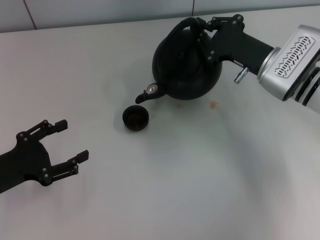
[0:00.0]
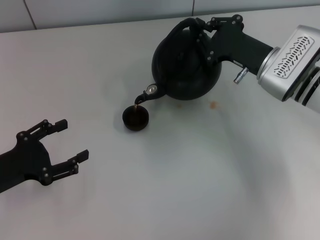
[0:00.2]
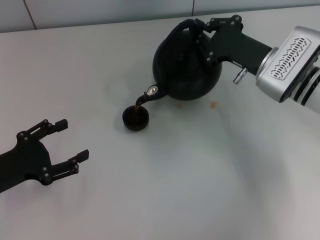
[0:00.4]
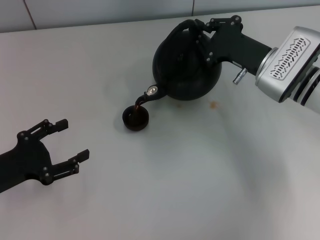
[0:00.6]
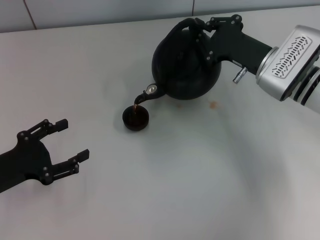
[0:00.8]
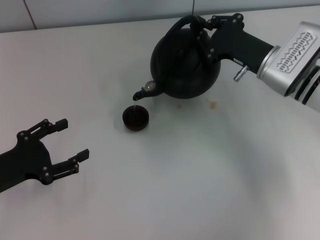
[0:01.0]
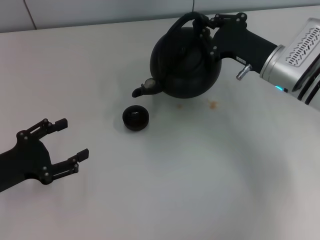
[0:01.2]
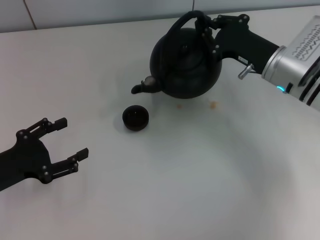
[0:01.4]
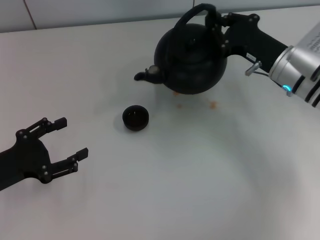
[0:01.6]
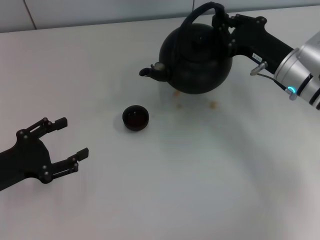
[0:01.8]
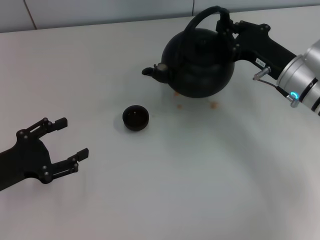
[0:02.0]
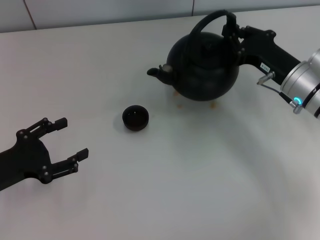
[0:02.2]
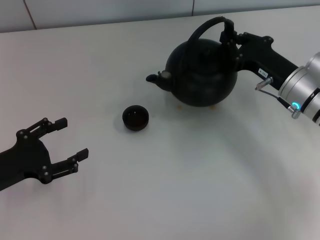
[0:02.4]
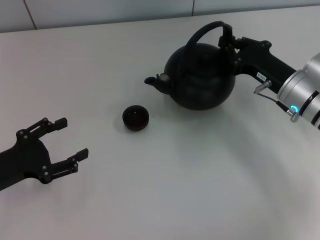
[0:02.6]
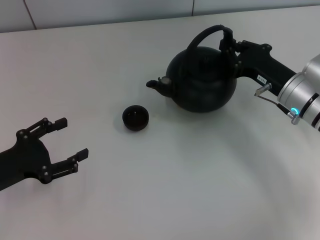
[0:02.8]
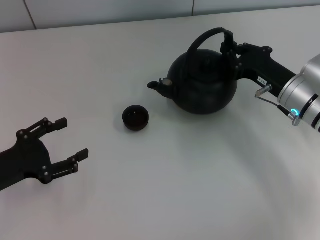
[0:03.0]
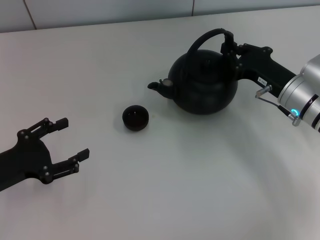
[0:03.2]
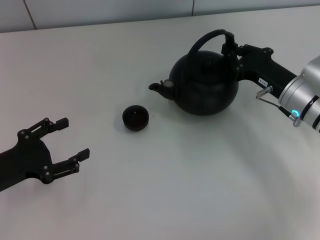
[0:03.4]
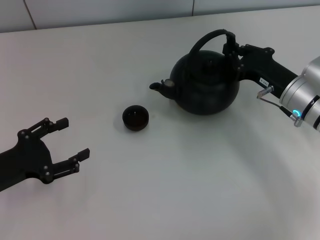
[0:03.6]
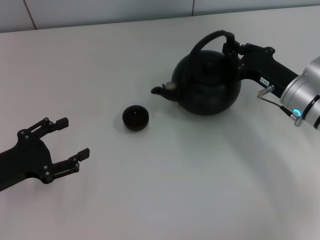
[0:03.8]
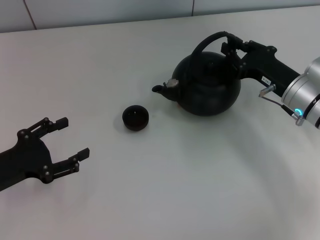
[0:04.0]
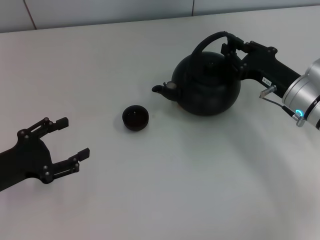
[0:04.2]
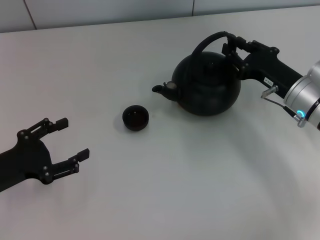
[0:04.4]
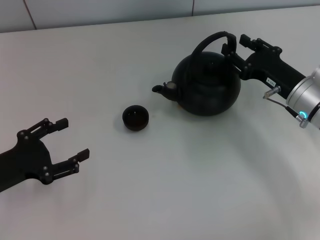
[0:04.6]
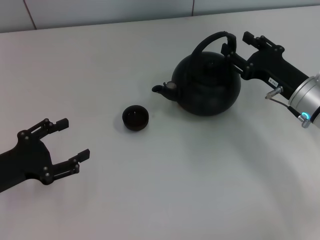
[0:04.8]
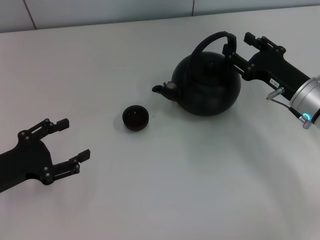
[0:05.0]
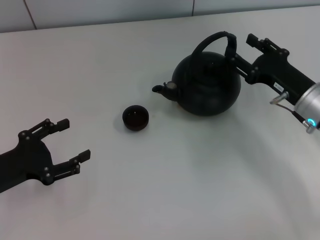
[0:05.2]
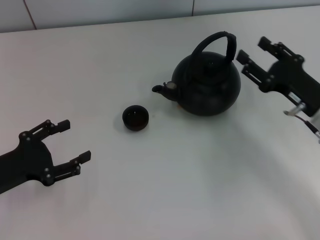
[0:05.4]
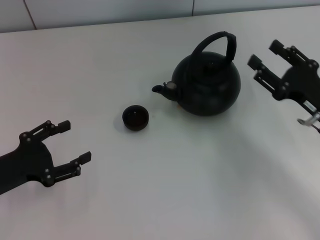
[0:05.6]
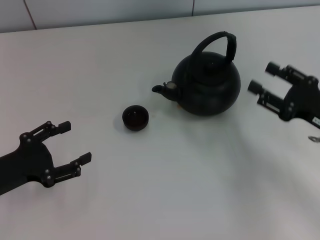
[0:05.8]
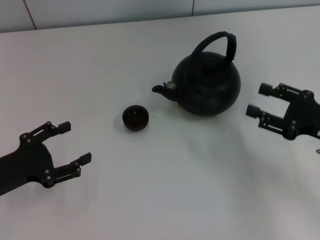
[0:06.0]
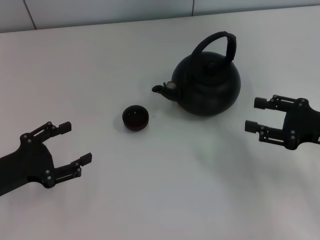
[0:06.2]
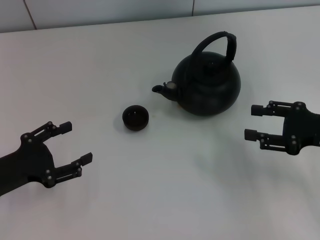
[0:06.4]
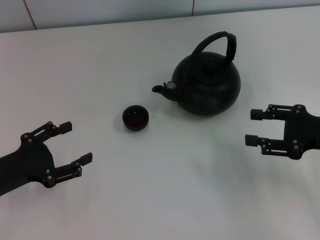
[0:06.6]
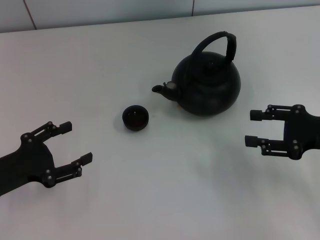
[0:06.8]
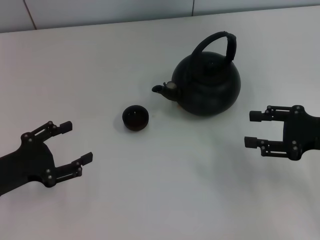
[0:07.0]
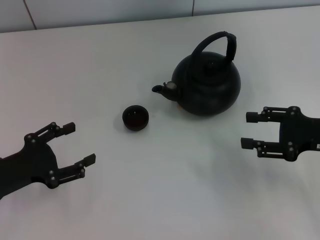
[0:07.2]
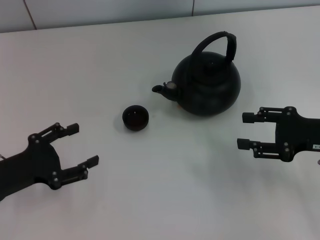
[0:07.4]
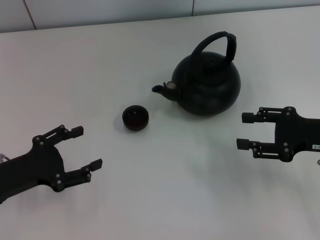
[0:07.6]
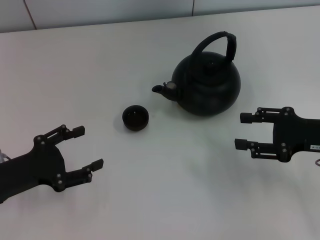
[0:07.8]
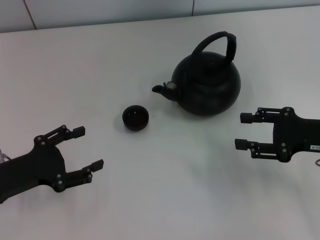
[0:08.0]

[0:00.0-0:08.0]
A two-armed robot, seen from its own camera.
Task of the whole recording: Grasp the handle of the teapot with one hand and pour tea into the teacup.
Step, 0:01.2 to 0:05.4: Put down the teapot with the right gripper.
0:01.6 to 0:03.2: There are only small adjustments of the grippers.
0:03.2 to 0:04.8: The right gripper opens its fingers.
0:04.8 to 0:06.4: The right gripper is displaced to the right and backward by approximately 10 cm.
0:06.4 to 0:08.0: Both grippers stay about where they are.

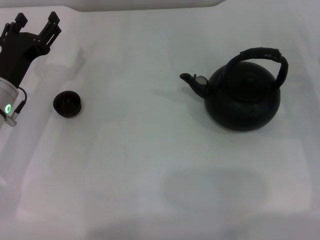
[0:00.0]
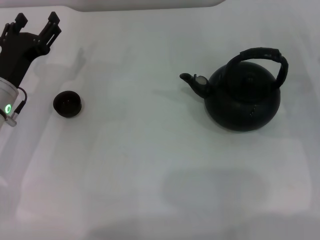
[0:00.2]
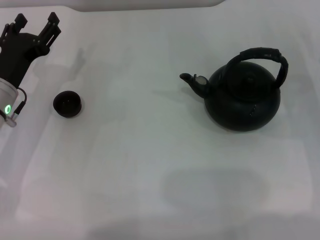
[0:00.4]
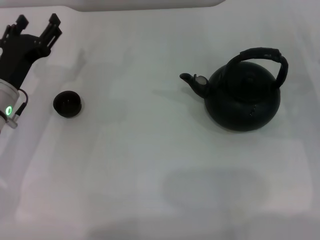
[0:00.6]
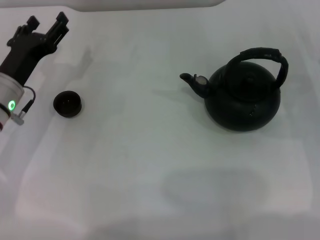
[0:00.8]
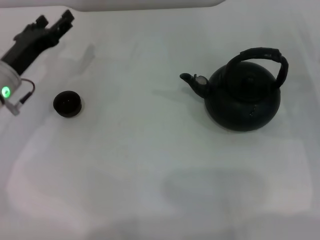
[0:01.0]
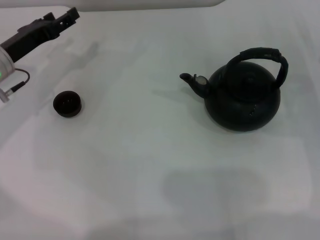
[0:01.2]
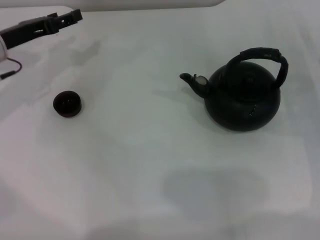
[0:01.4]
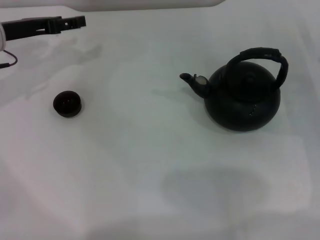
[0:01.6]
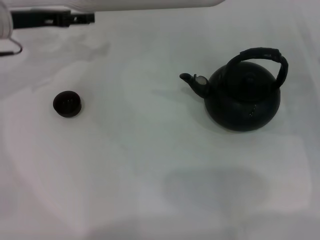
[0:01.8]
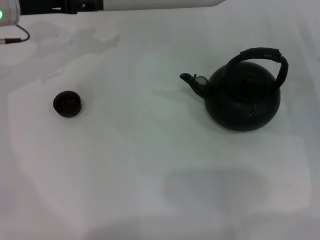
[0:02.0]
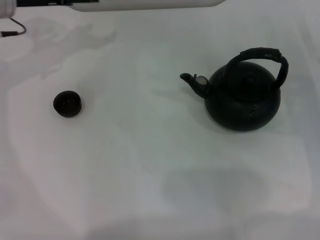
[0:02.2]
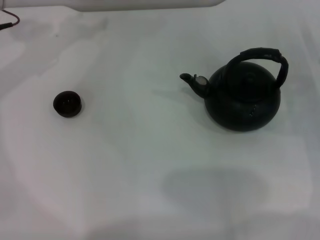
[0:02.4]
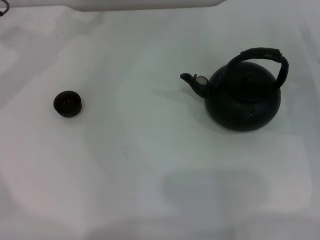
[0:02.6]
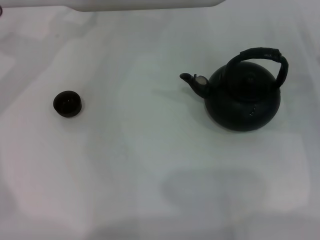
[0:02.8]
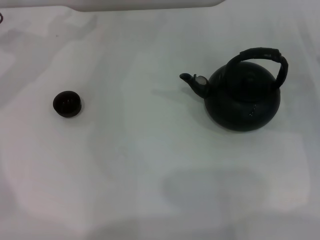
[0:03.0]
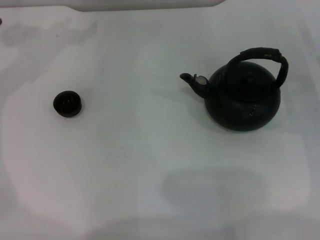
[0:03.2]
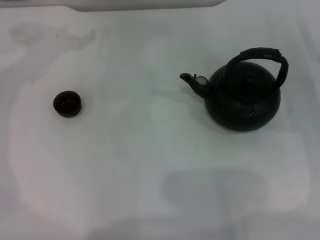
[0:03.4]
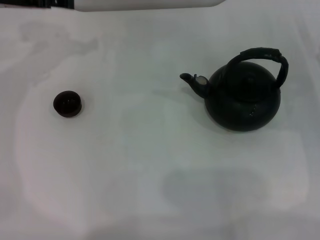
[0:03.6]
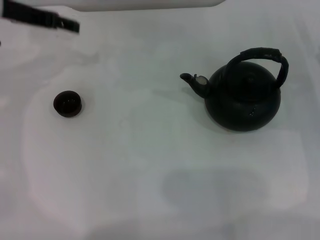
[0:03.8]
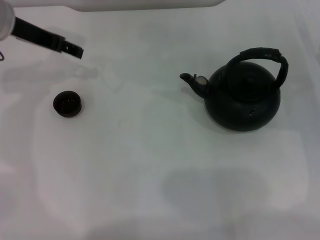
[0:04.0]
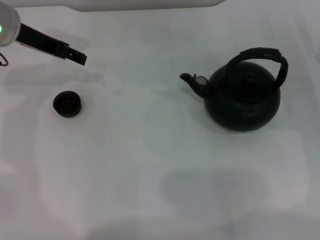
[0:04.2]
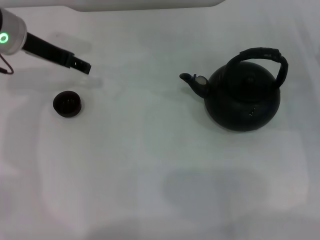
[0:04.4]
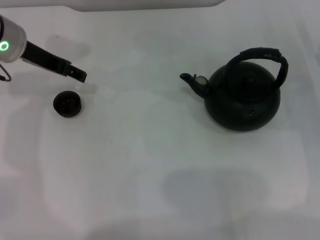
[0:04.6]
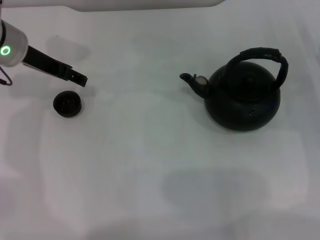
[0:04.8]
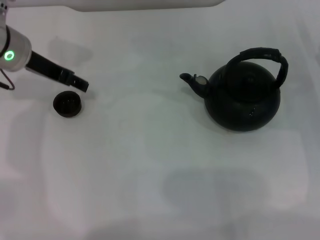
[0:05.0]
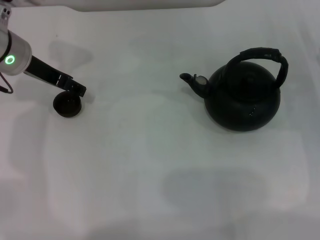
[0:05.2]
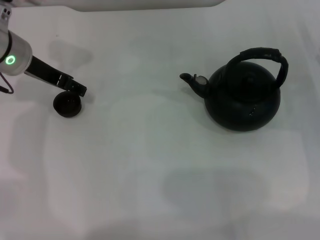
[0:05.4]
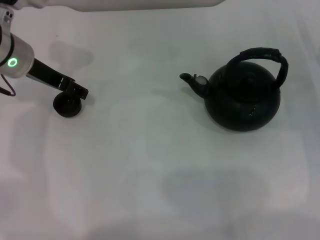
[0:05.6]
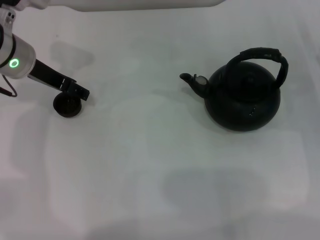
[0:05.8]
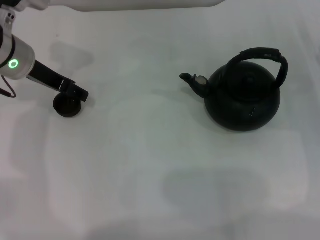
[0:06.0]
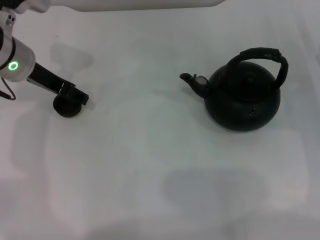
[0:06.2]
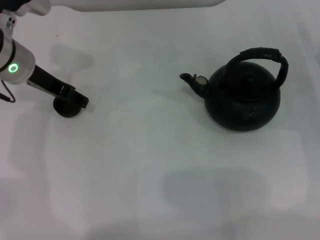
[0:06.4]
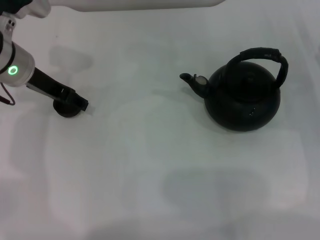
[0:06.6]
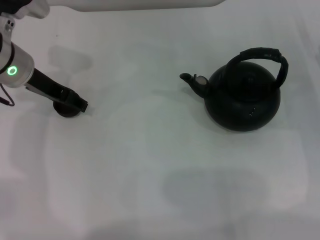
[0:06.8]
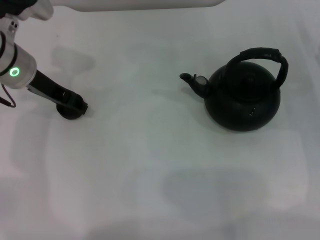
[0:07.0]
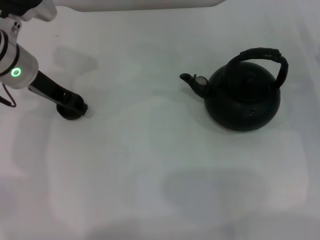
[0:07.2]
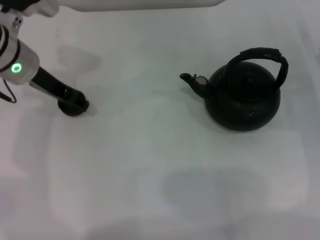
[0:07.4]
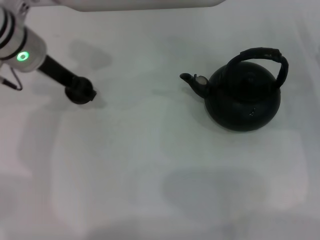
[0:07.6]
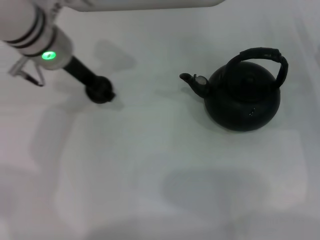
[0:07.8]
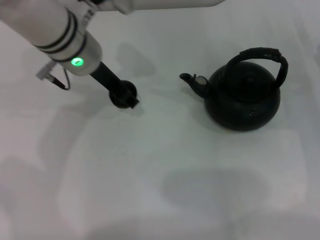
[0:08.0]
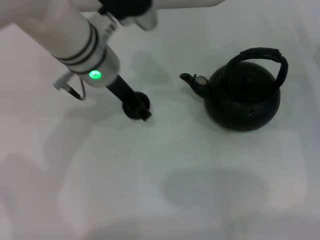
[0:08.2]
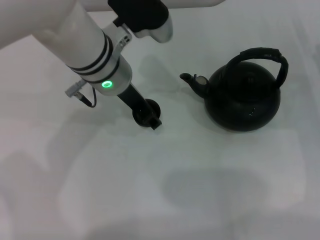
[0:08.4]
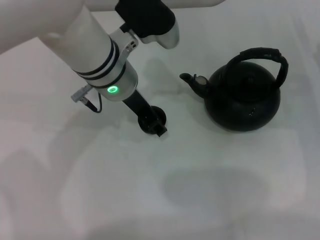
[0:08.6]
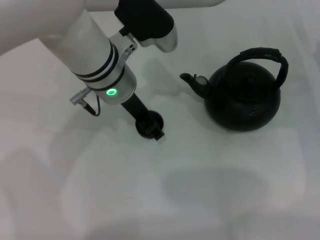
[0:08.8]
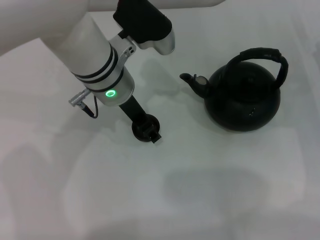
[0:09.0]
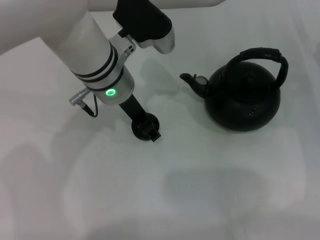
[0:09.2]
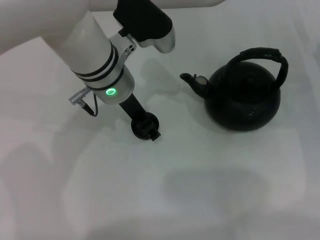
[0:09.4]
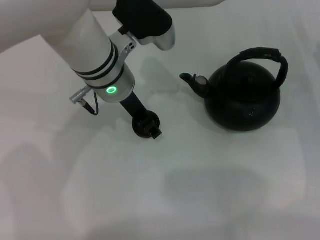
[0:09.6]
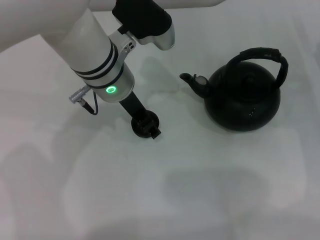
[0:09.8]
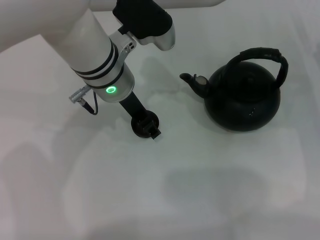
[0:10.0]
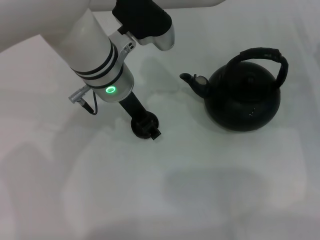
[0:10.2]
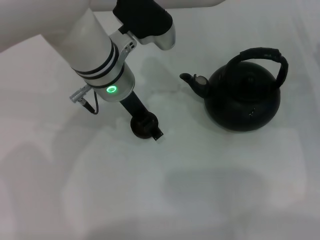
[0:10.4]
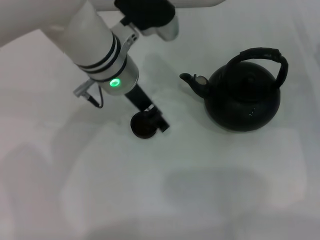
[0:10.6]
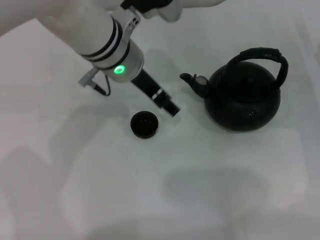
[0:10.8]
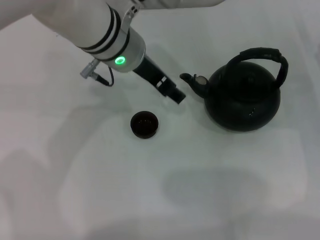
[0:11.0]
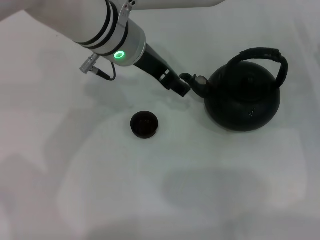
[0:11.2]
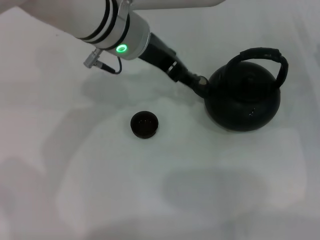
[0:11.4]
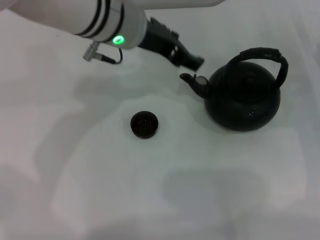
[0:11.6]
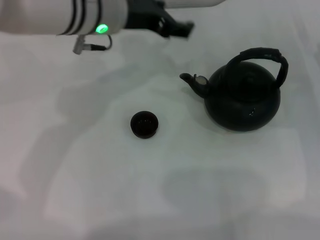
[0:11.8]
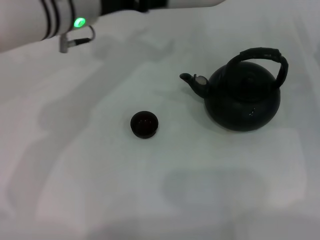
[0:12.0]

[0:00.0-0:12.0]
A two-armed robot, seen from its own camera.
Task of the whole recording: Grasp the handle of the teapot with one hand and pour tea into the teacup.
Step, 0:00.0 to 0:07.4: Pick up the teacup with the left gripper.
Step, 0:07.8 to 0:10.4: Place the teacup in the center of view with the left gripper.
0:00.0 to 0:01.6: The left gripper heads forward and upward, covering some 10 cm.
0:03.0 to 0:04.4: The left gripper shifts about 5 cm to the right.
0:04.4 to 0:06.0: The grippers stay close to where they were, moving slightly.
0:06.0 to 0:07.6: The left gripper closes.
0:07.6 to 0:09.0: The left gripper goes approximately 10 cm to the right.
0:09.0 to 0:10.4: The left gripper opens up.
0:10.4 to 0:12.0: The left gripper shifts about 5 cm to the left, and opens up.

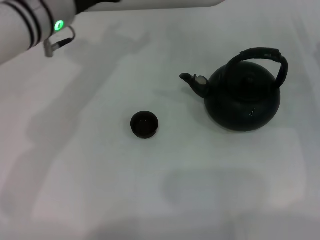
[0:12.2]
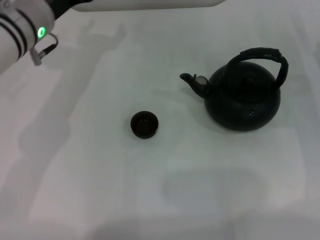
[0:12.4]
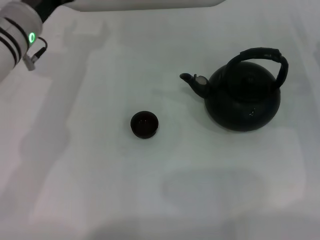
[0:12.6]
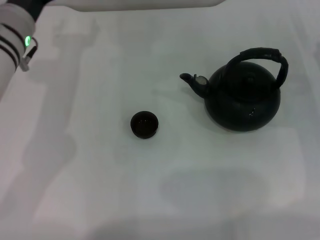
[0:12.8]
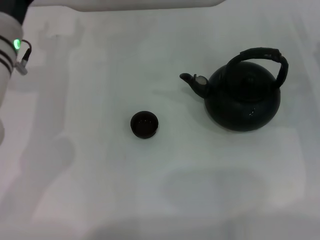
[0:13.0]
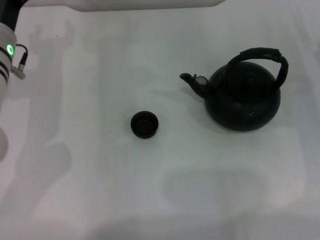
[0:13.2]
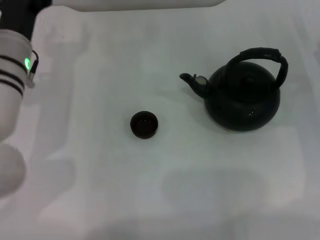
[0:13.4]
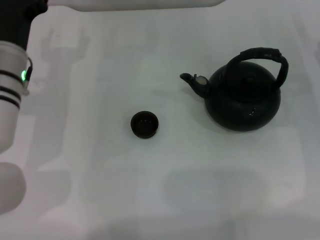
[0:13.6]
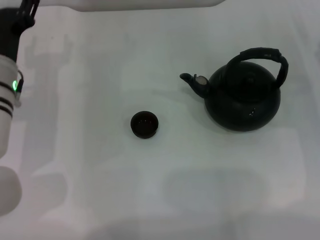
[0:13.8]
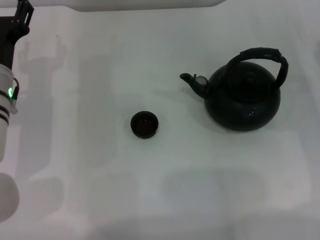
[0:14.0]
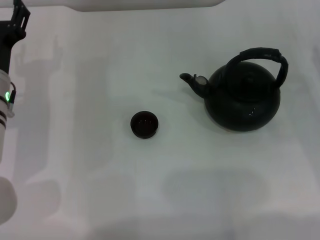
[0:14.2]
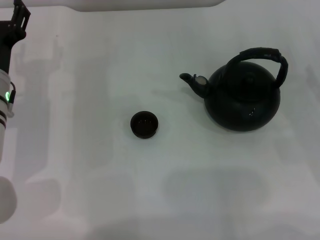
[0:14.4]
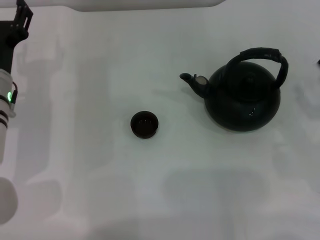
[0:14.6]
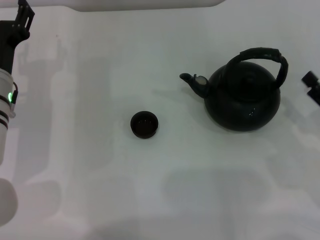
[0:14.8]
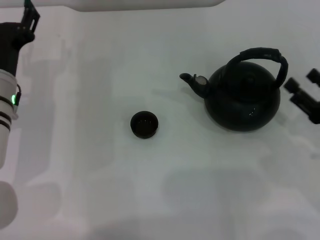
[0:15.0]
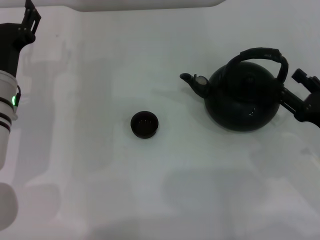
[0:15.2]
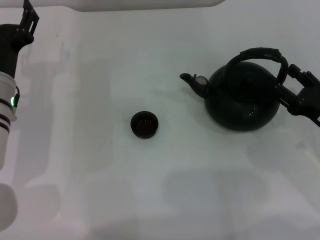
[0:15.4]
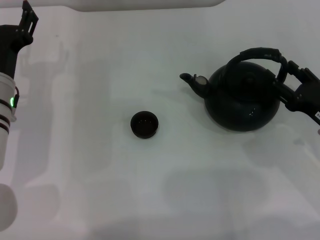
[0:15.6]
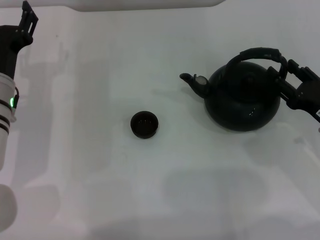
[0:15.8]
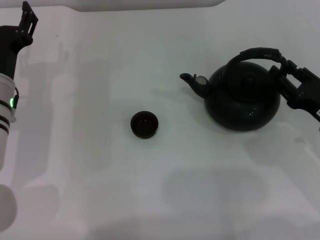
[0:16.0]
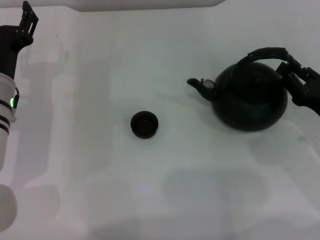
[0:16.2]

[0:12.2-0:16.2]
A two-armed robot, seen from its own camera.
Task of the whole recording: Grasp the handle of the teapot with one hand and pour tea into the teacup.
0:12.2 to 0:13.6: The left gripper is displaced downward by roughly 10 cm.
0:14.8 to 0:16.2: The grippers stay close to where they were, moving slightly.